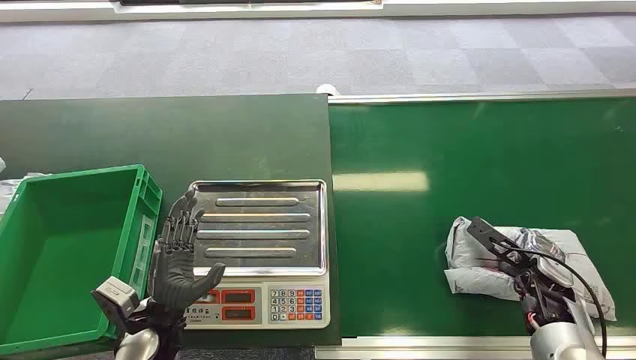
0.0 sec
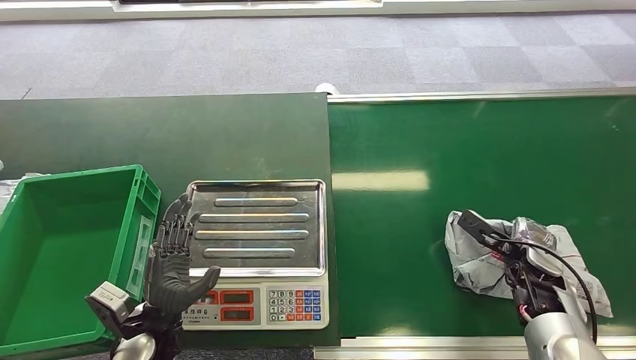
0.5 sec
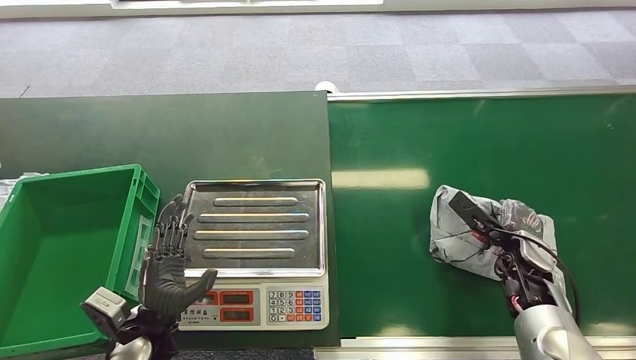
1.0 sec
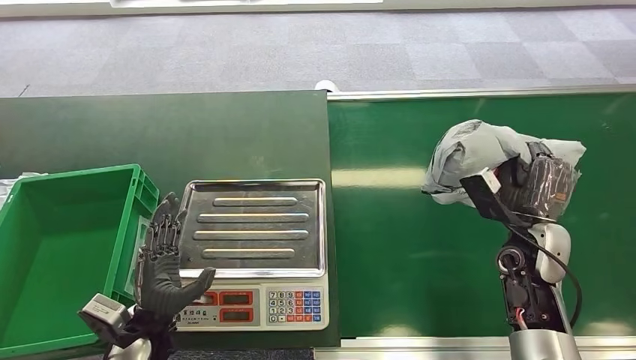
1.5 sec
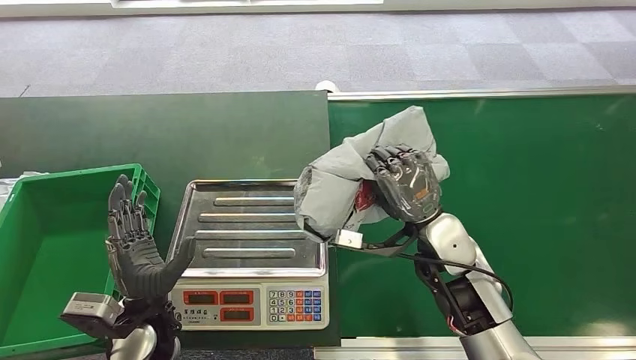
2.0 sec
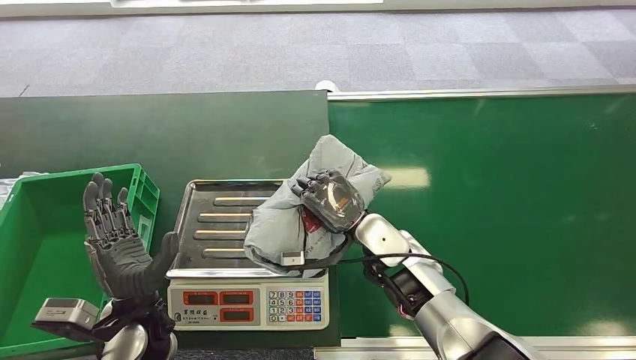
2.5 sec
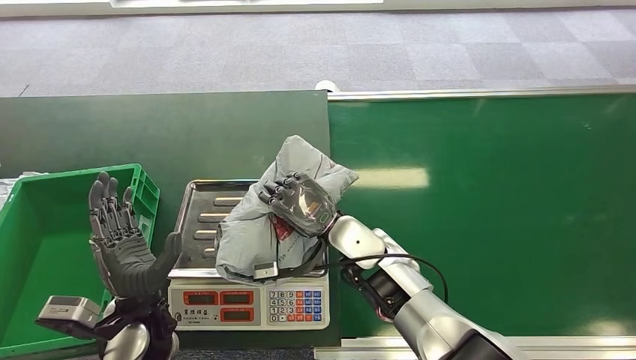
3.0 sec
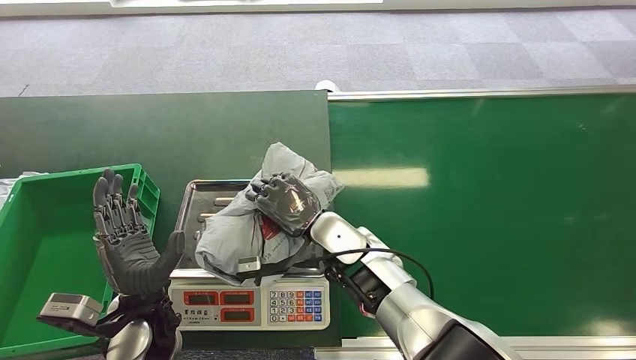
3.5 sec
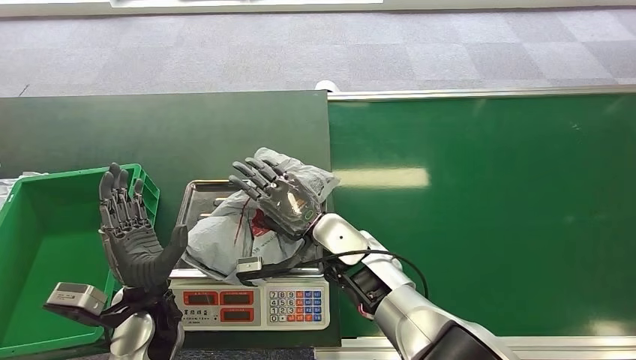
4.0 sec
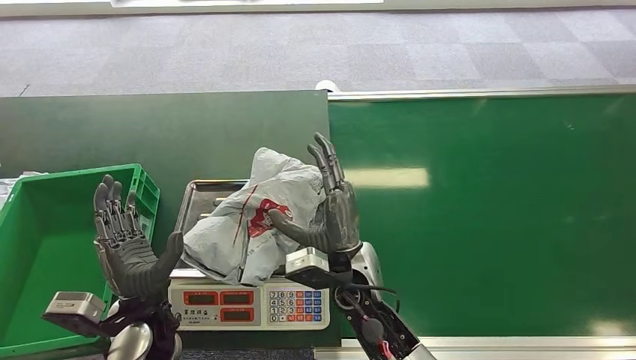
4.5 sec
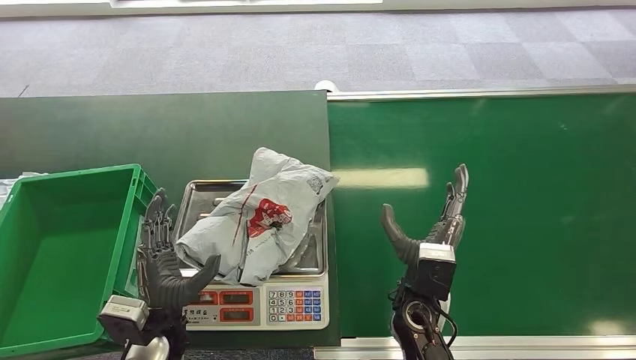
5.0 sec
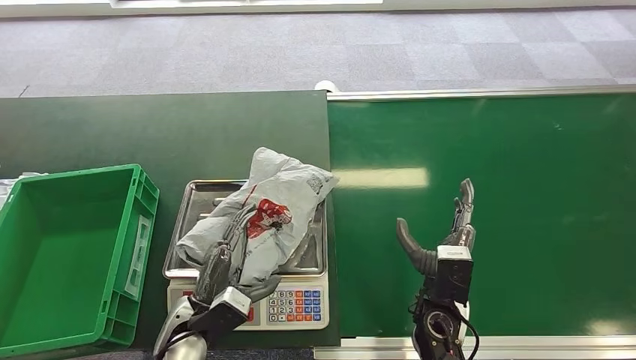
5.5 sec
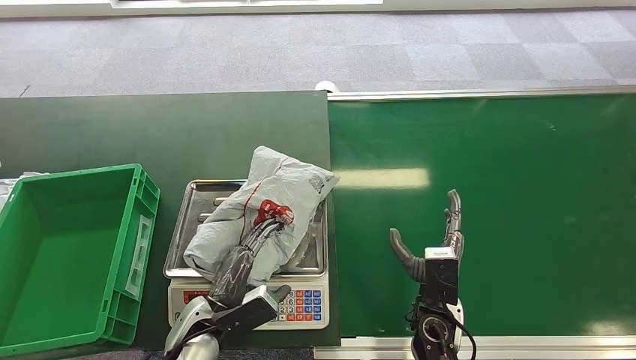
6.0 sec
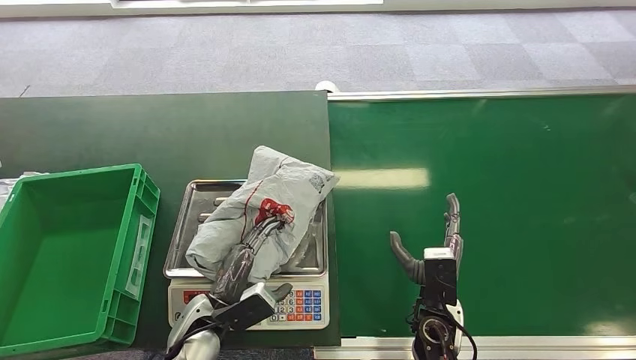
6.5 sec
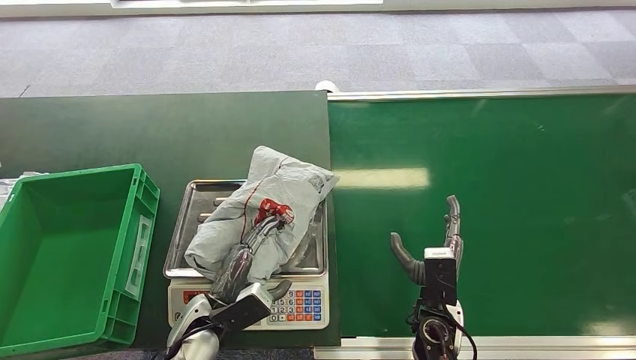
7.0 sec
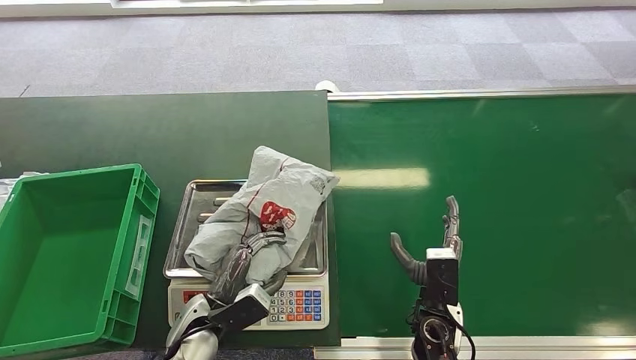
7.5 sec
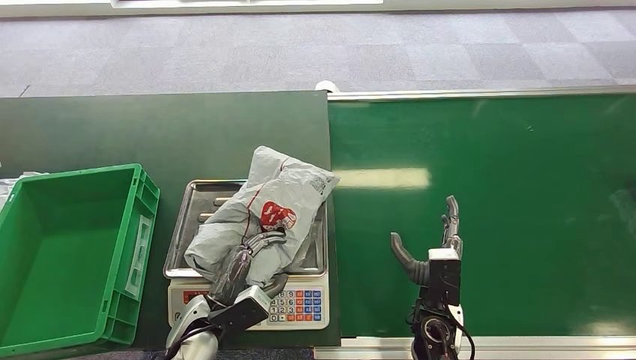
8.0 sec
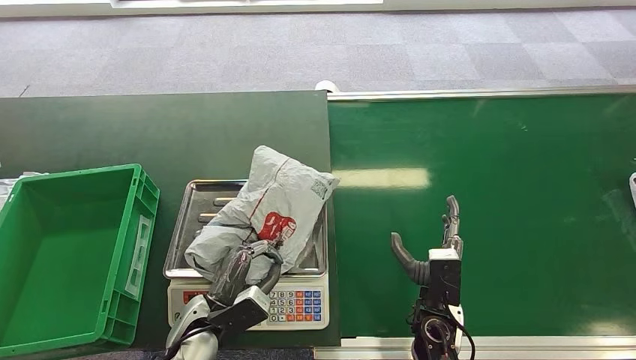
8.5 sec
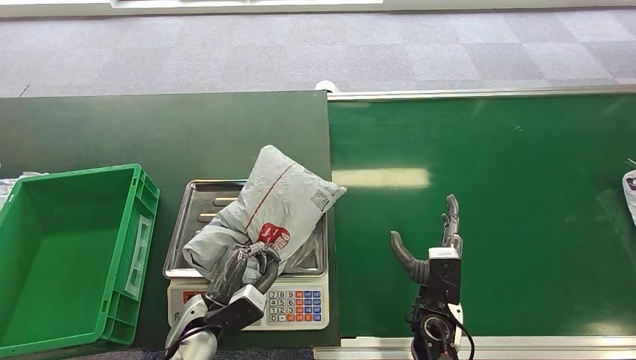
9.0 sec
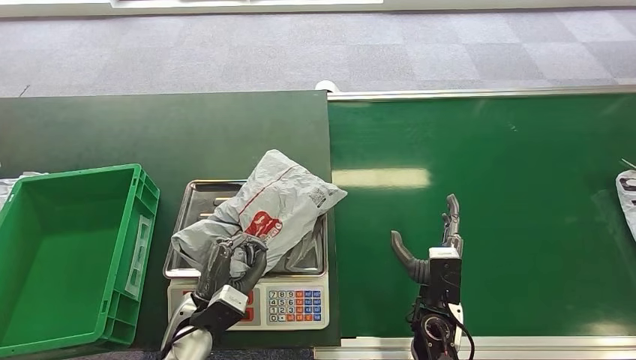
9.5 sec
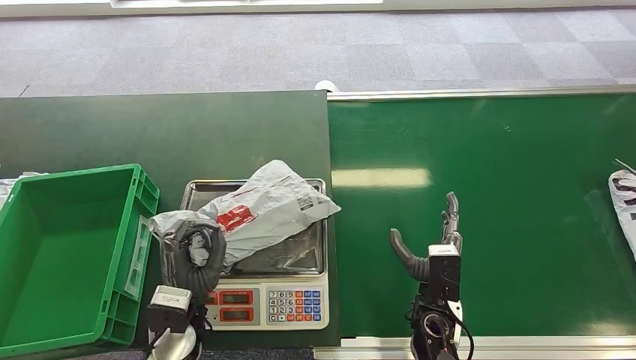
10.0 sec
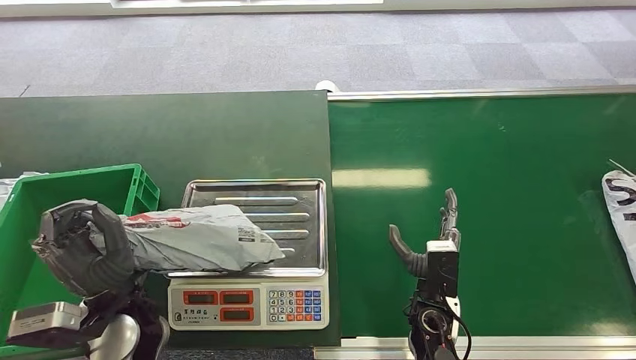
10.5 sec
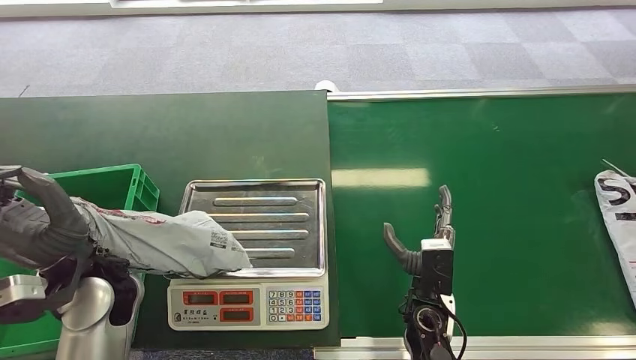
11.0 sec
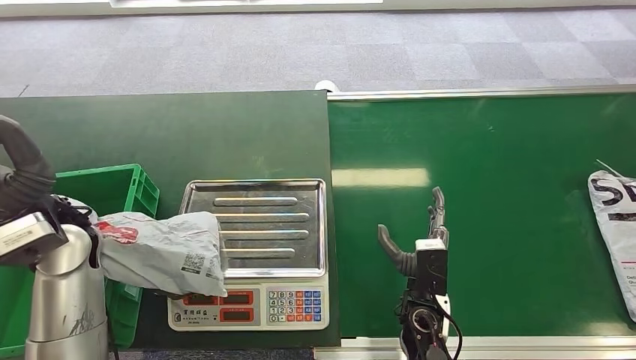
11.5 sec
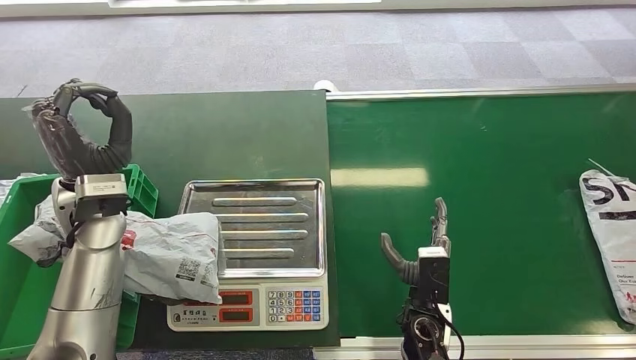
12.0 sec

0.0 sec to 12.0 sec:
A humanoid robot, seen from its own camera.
Step, 0.0 sec to 1.5 sec: Pick up the package from the conveyor belt.
Step, 2.5 sec to 4.0 sec: Place the package onto the inbound machine.
Step, 9.5 sec to 11.0 sec: Pick up the package from the inbound machine.
2.0 sec to 4.0 sec: The right hand heads to the left, covering approximately 15 cm.
4.0 sec to 6.0 sec: The left hand moves downward and to the right, some 10 cm; the right hand heads to the right, backward and downward, covering approximately 20 cm.
6.0 sec to 8.0 sec: The hands move only a little.

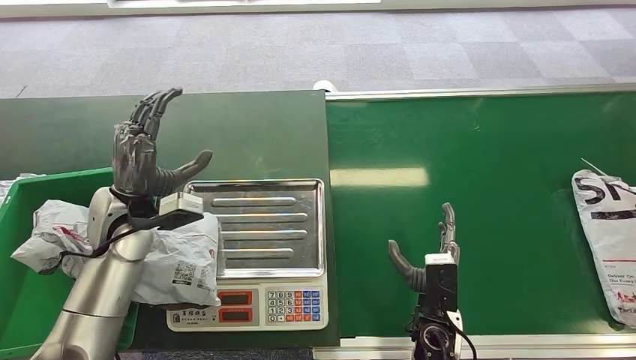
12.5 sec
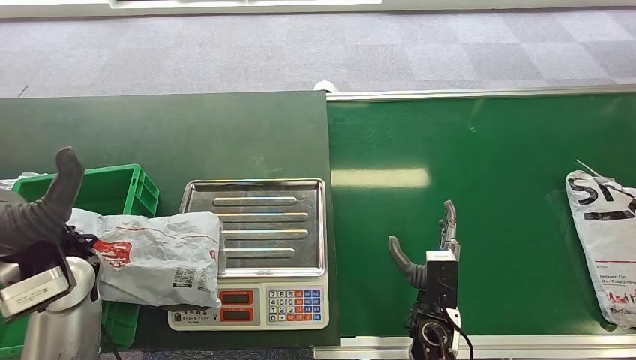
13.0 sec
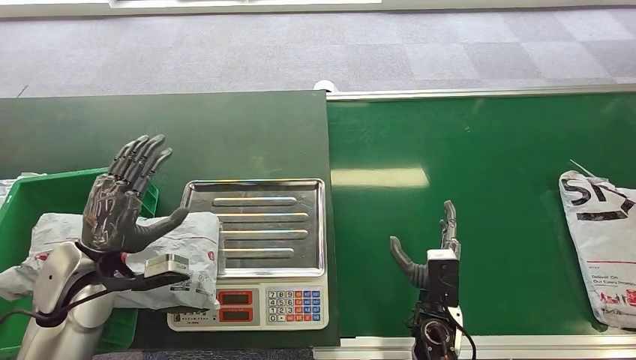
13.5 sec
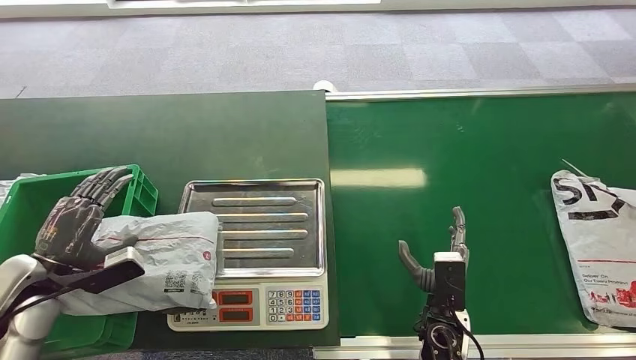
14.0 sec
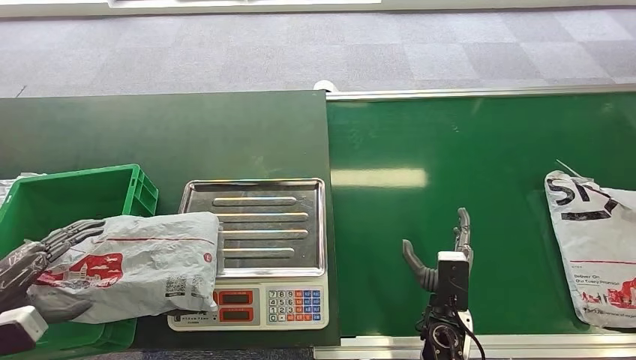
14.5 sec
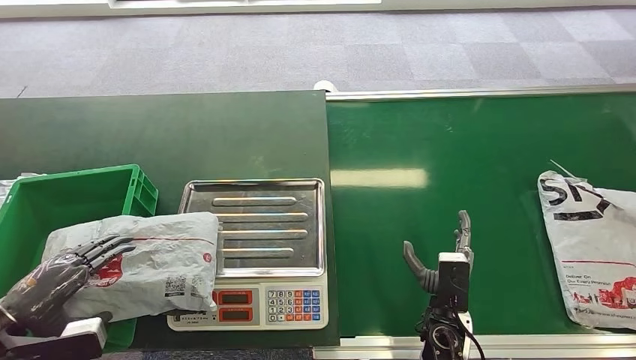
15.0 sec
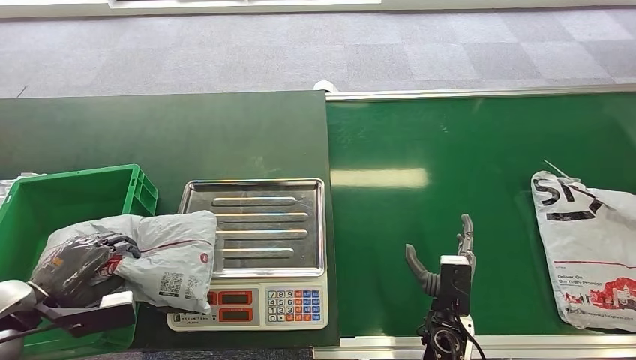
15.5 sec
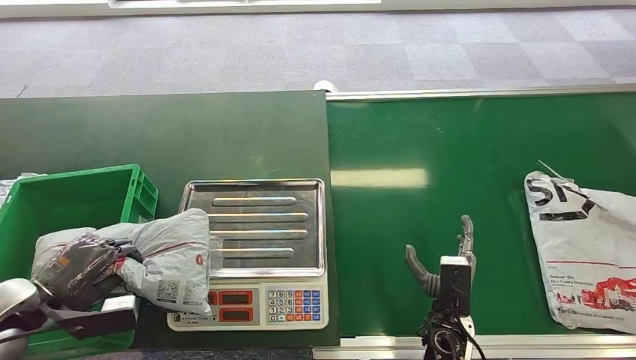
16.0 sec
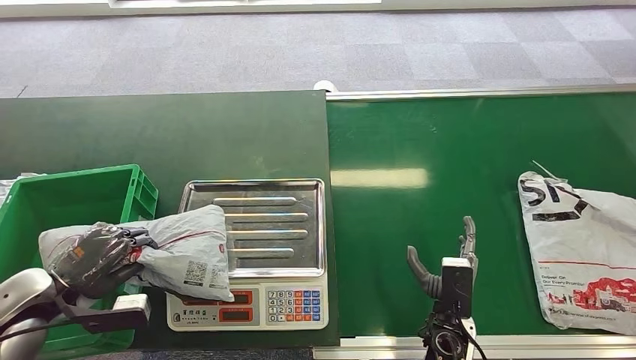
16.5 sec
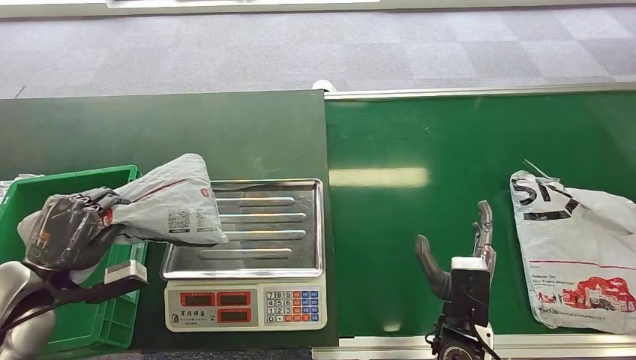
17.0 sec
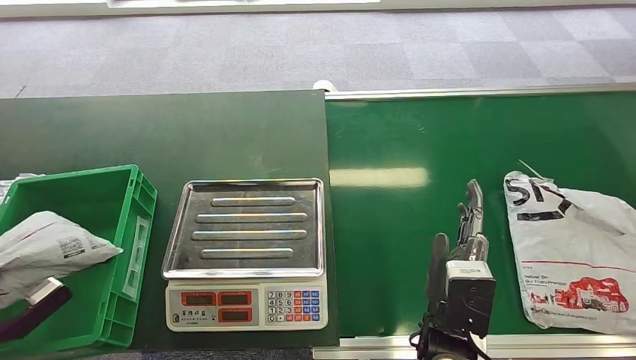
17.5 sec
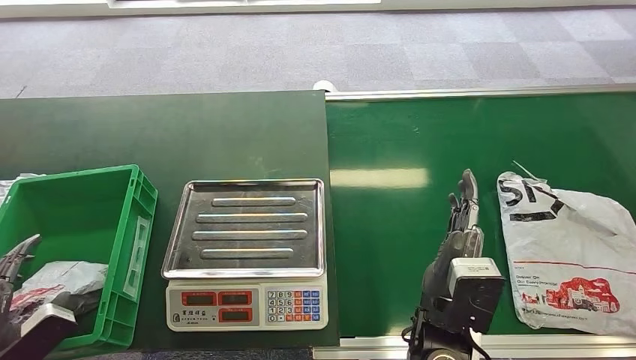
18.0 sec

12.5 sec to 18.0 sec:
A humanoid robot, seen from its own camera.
Step, 17.0 sec to 18.0 sec: Place the package into the parcel locker.
12.5 sec to 14.5 sec: The left hand travels to the left and backward by approximately 30 cm.
14.5 sec to 16.0 sec: The left hand travels to the right by roughly 5 cm.
16.0 sec to 18.0 sec: The right hand moves upward and to the left, some 15 cm, while the left hand travels backward by some 10 cm.
